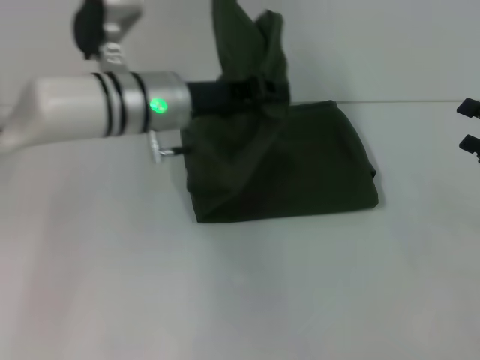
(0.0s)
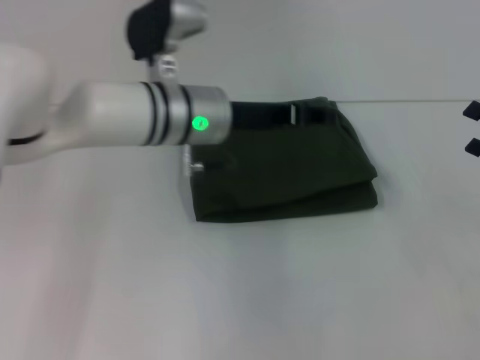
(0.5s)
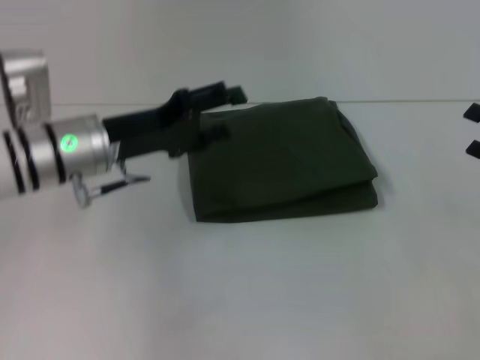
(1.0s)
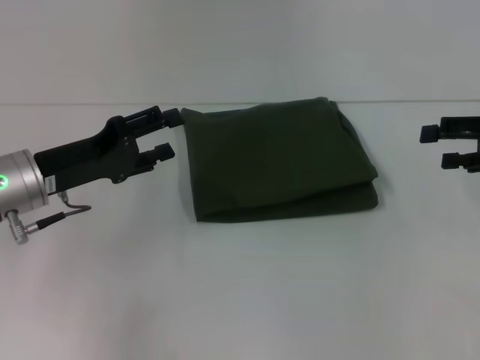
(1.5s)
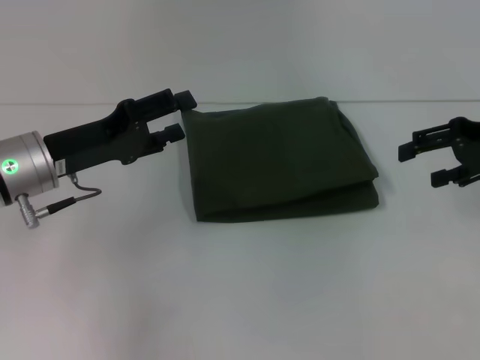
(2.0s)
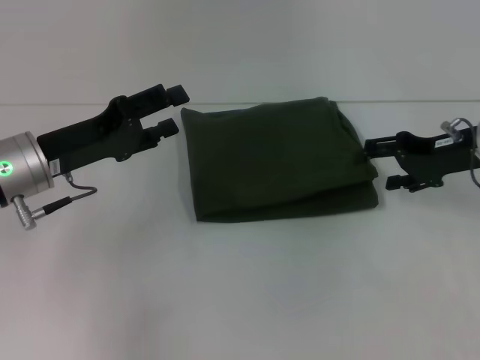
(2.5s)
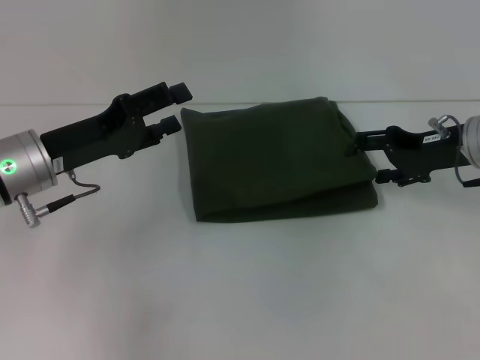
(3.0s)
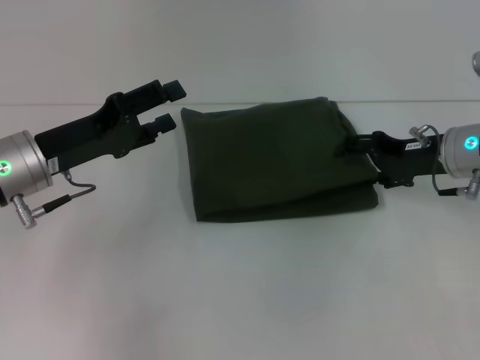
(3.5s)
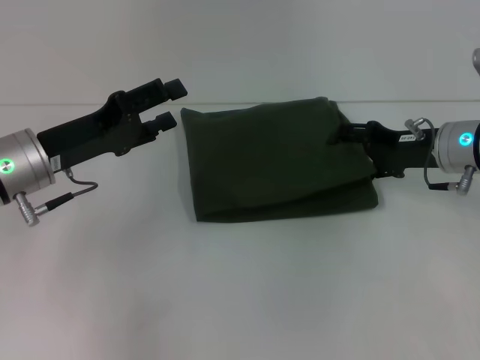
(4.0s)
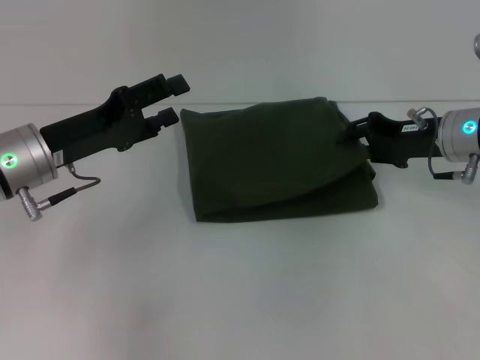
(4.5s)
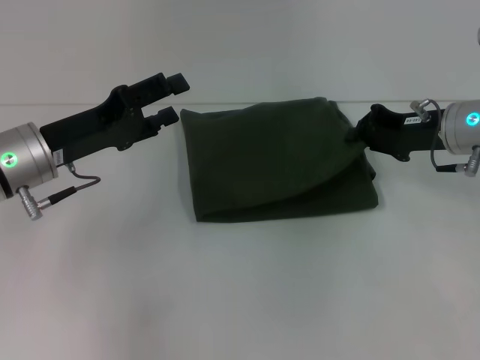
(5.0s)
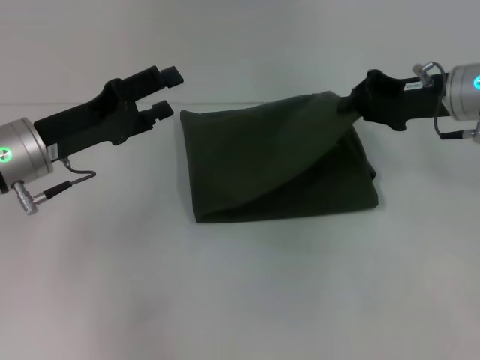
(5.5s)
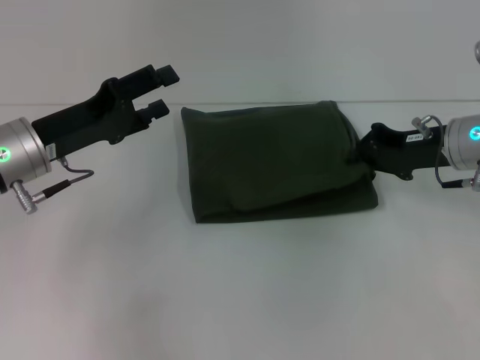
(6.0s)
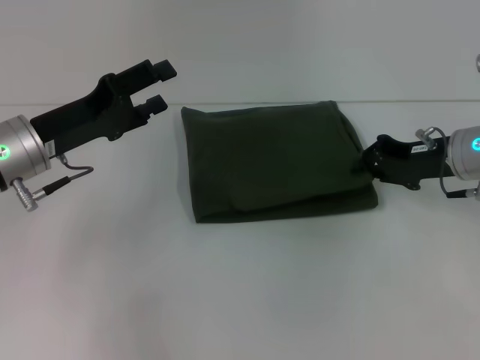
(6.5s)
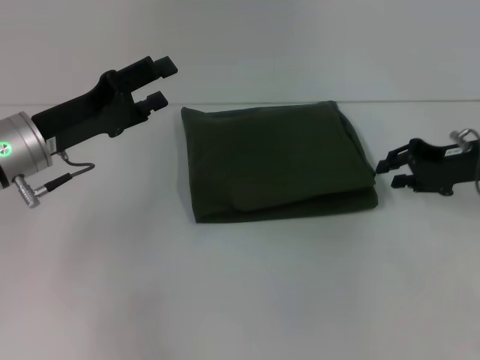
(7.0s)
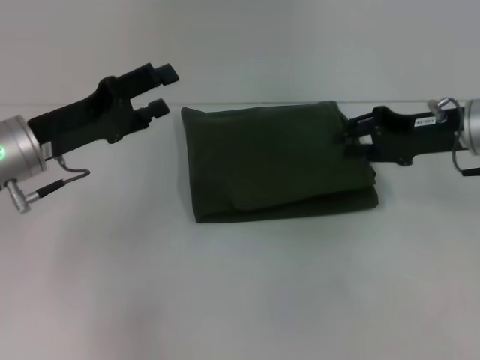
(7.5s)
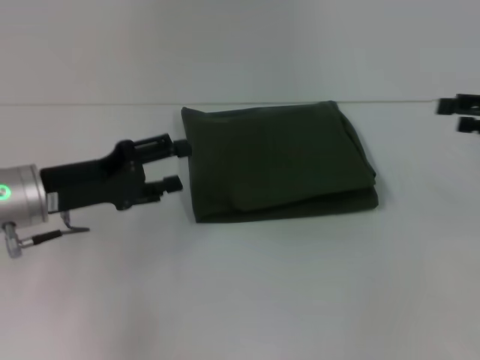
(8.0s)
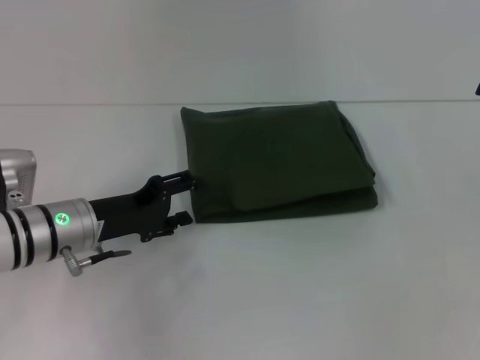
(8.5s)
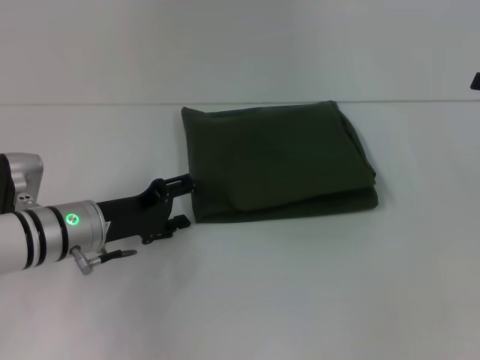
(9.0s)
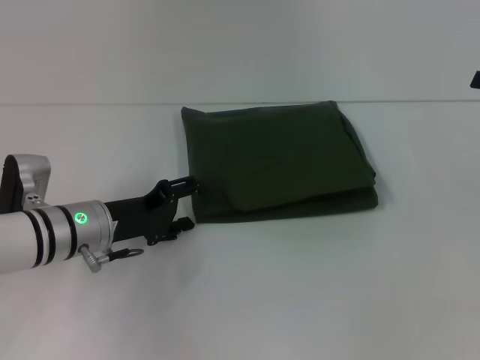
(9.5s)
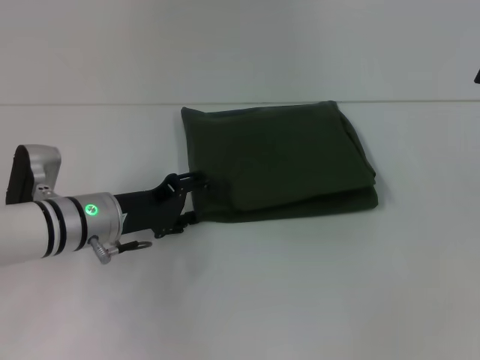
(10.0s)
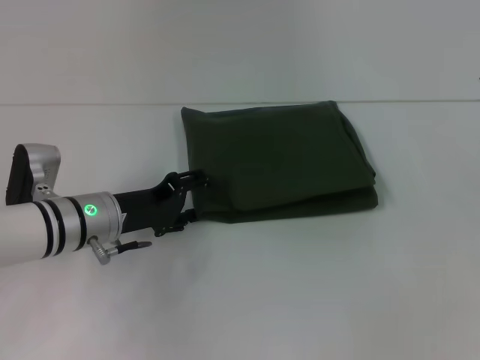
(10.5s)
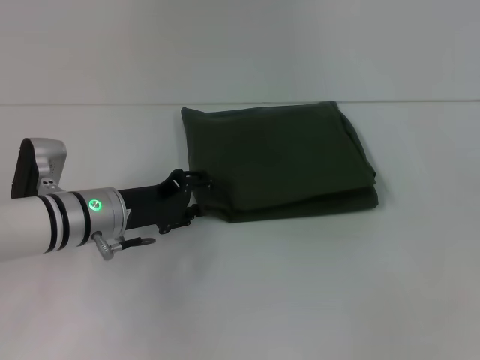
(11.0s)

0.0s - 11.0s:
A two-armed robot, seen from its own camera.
0.0s - 2.0s: The right gripper travels upward and forward by about 10 cm. Meanwhile the left gripper goes approximately 15 cm to the left and backward, and opens.
2.0s - 3.5s: The right gripper is displaced downward and to the left by about 10 cm.
3.5s - 5.5s: The right gripper travels upward by about 5 cm, and closes.
5.5s - 7.5s: The right gripper opens.
7.5s - 9.0s: The right gripper goes some 15 cm to the right, and opens its fingers; the left gripper heads downward, covering about 10 cm.
9.0s - 11.0s: The grippers move only a little.

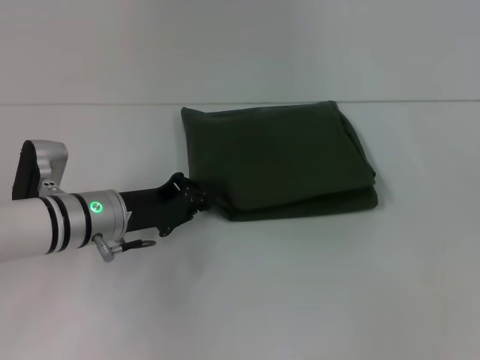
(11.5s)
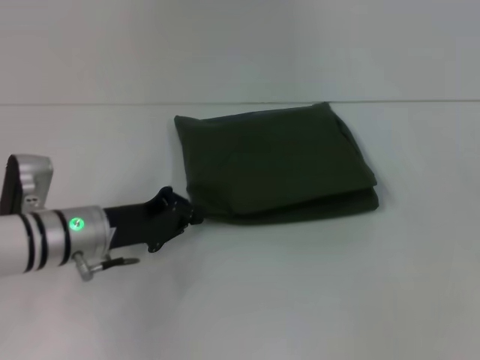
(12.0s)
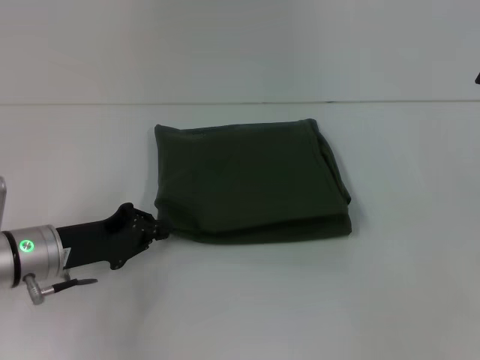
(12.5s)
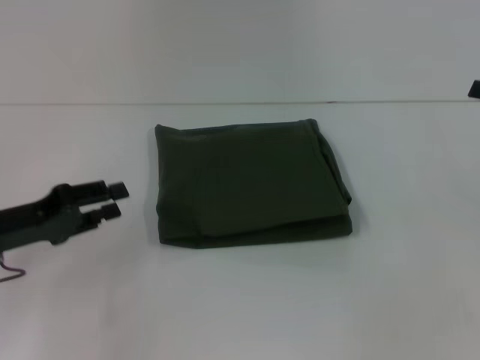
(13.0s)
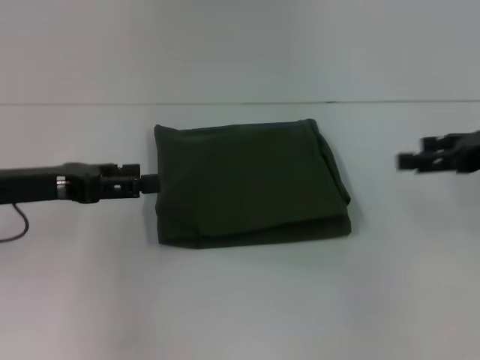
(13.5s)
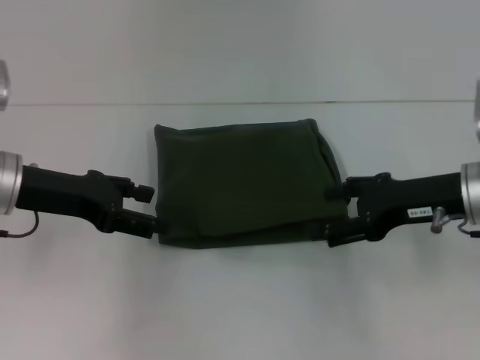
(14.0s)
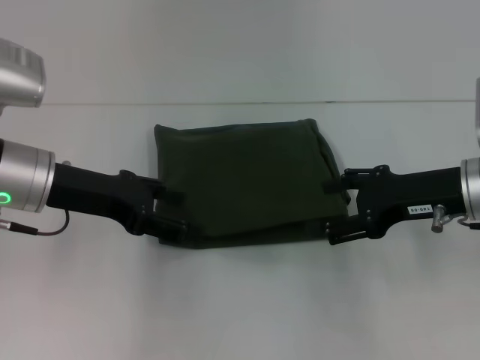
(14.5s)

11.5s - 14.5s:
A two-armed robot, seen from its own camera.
11.5s - 13.0s: The left gripper travels to the left and backward by roughly 15 cm.
13.0s - 14.5s: The left gripper moves to the right, upward and forward, about 10 cm, and opens, while the right gripper goes approximately 15 cm to the left.

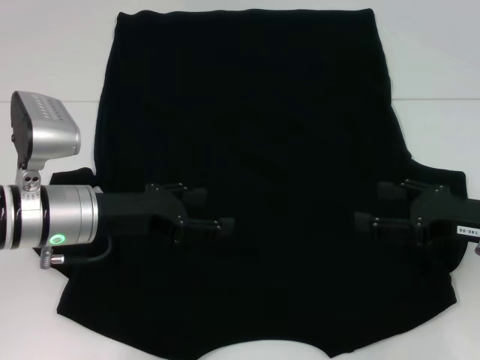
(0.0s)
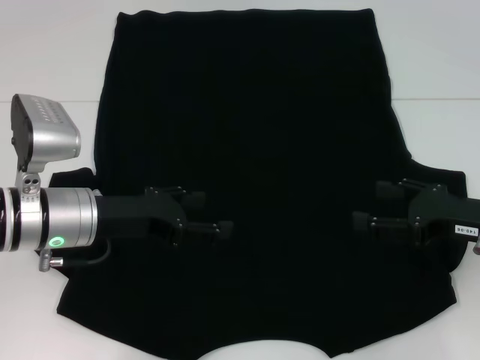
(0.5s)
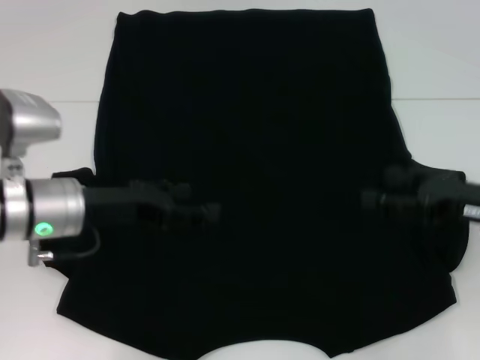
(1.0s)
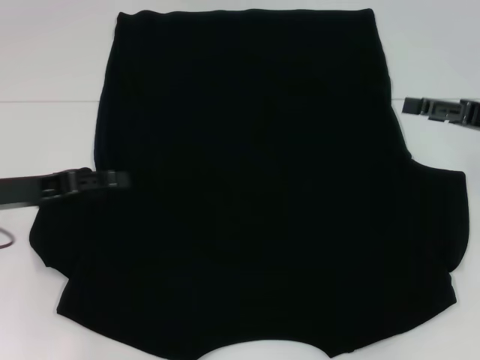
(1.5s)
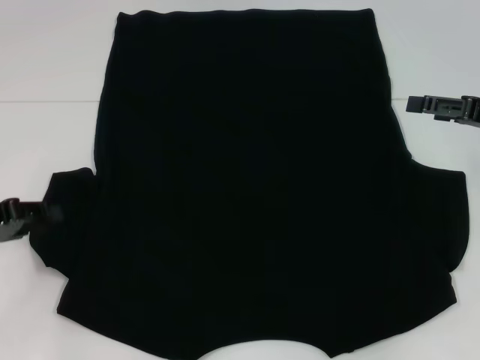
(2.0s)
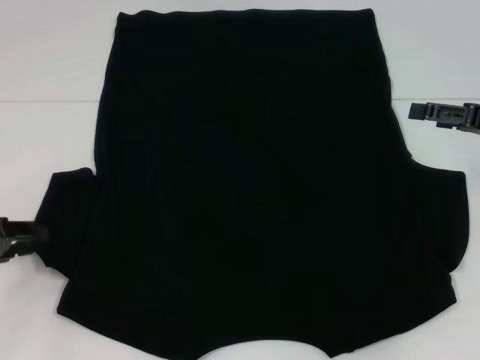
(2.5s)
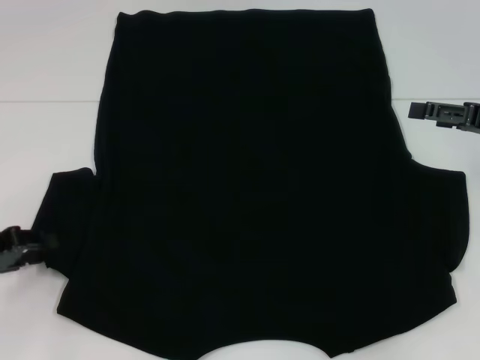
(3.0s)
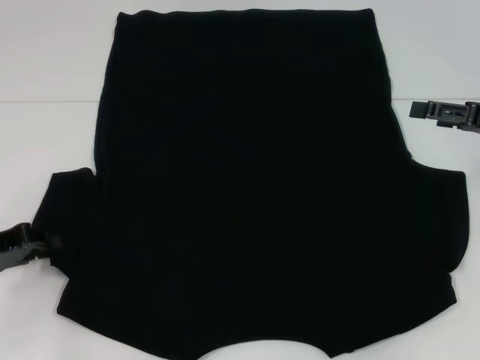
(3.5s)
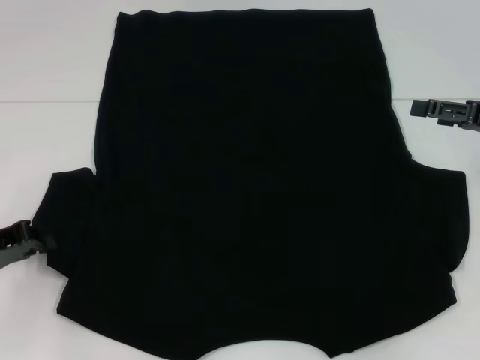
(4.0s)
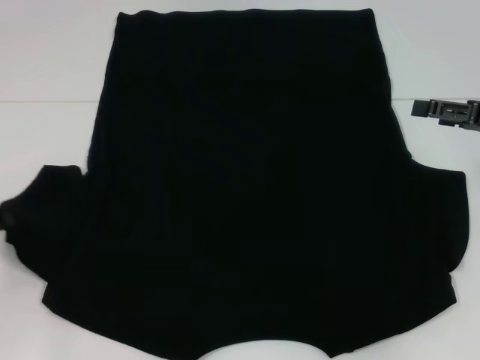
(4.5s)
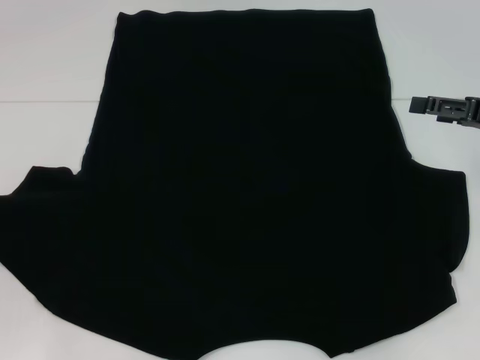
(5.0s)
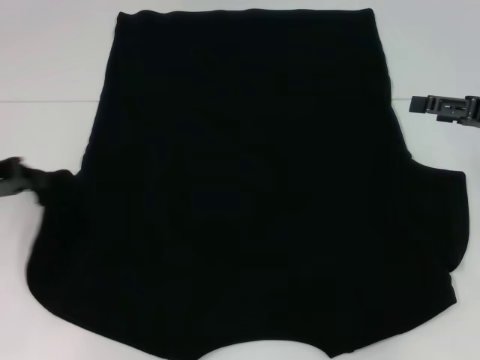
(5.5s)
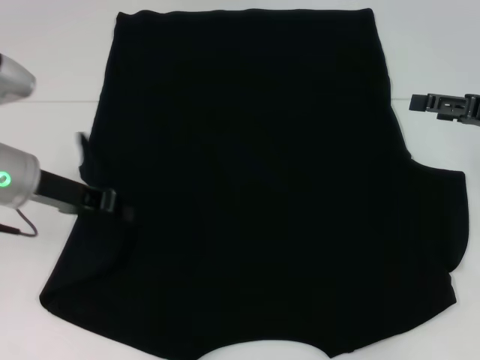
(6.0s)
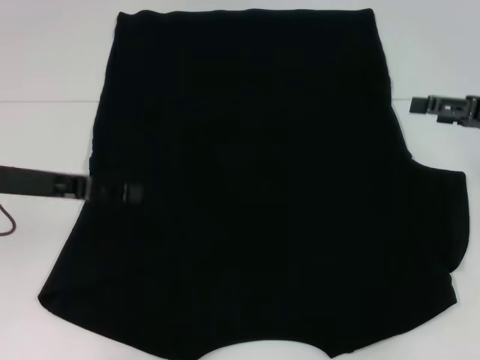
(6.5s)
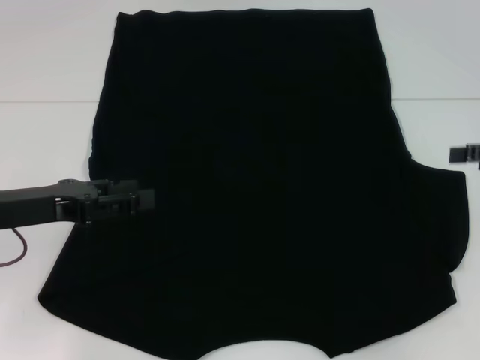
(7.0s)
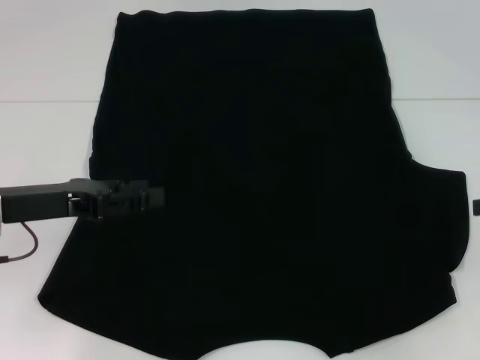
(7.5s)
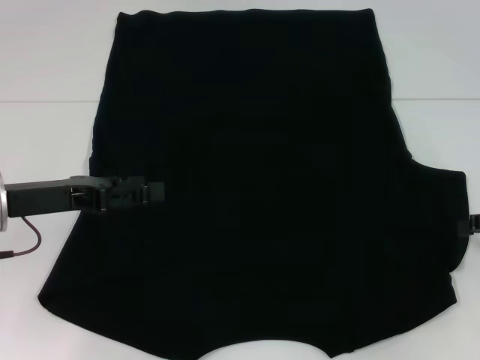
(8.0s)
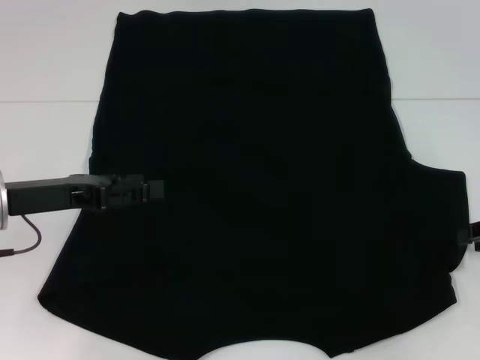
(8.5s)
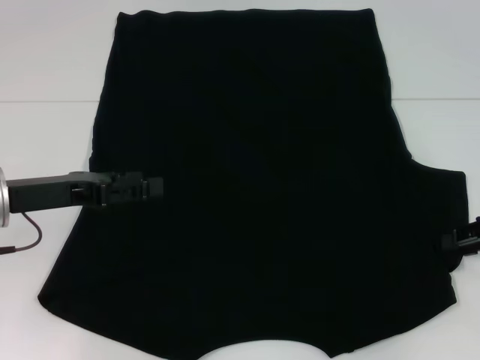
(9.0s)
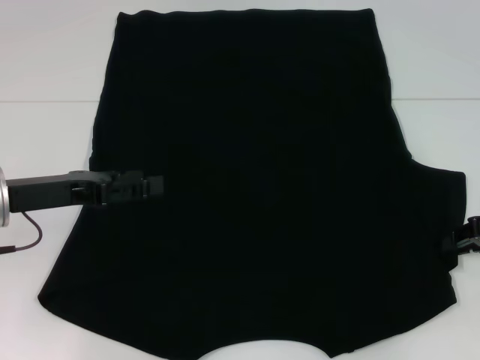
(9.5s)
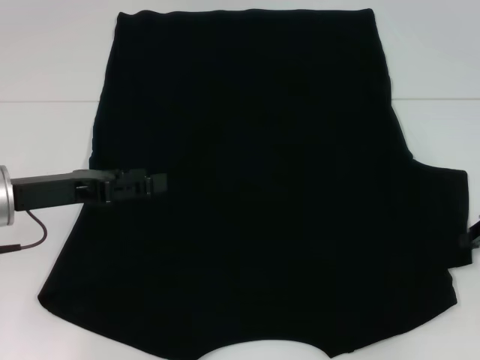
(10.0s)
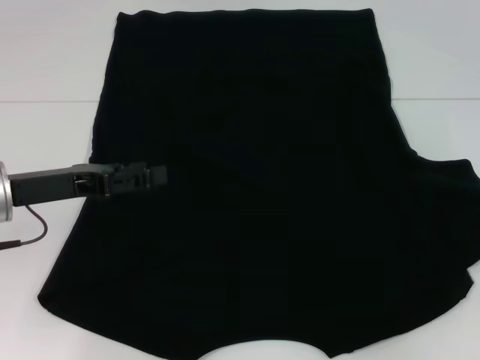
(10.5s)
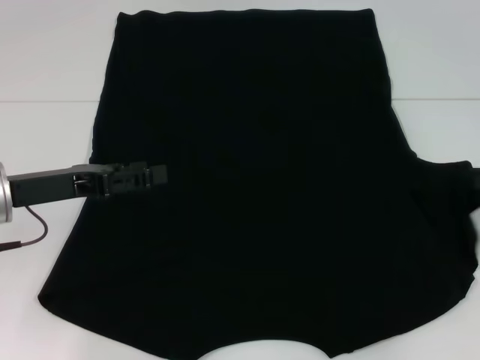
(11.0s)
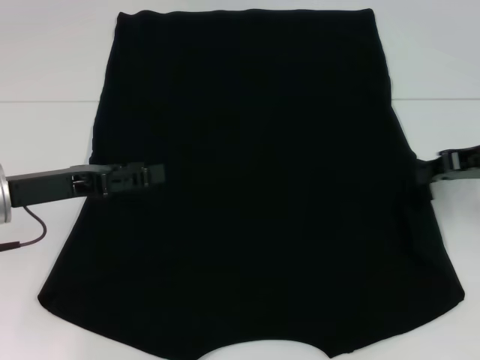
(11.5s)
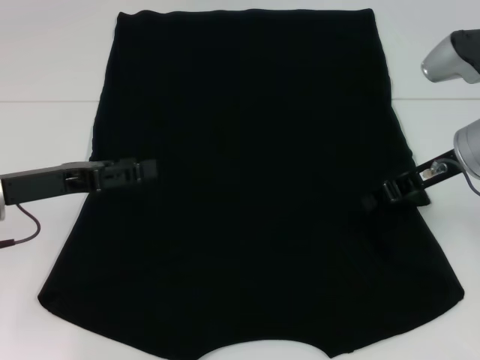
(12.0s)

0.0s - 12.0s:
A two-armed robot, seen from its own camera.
Step, 0.0s - 6.0s: Fold the bottom left sleeve with your left hand.
0.0s - 2.0s: The left gripper travels to the left by approximately 15 cm, and closes up, while the right gripper travels upward and forward by approximately 10 cm.
2.0s - 4.0s: The left gripper closes up.
4.0s - 6.0s: The left gripper heads to the right, forward and upward, covering about 15 cm.
6.0s - 8.0s: The right gripper heads backward, covering approximately 5 cm; the left gripper shifts by some 5 cm, and opens.
8.0s - 10.0s: The right gripper closes its fingers.
10.0s - 12.0s: The right gripper travels to the left by some 10 cm.
